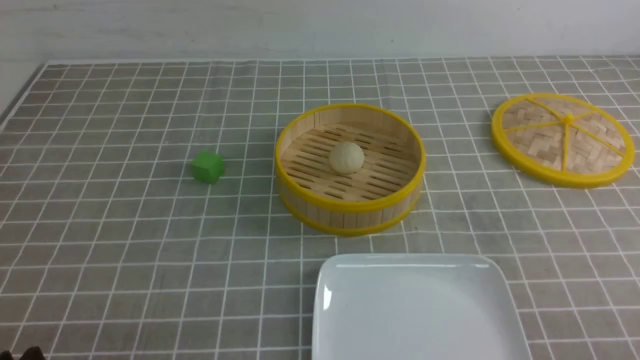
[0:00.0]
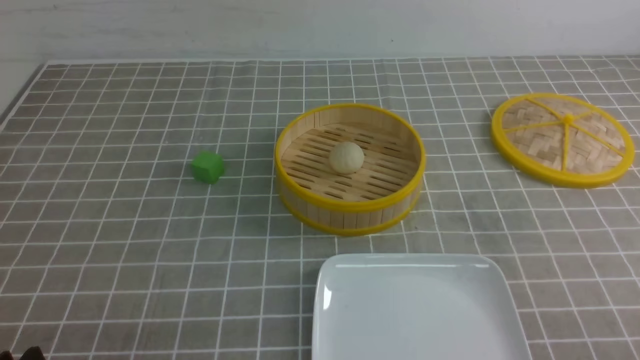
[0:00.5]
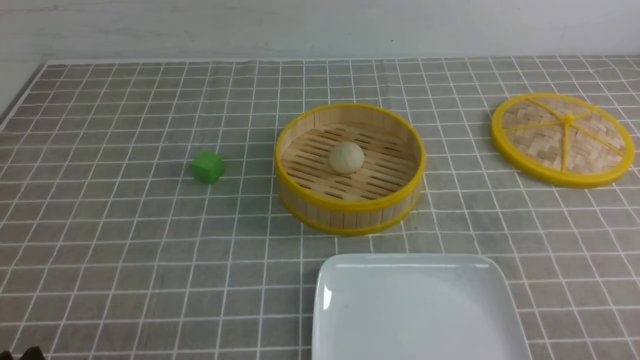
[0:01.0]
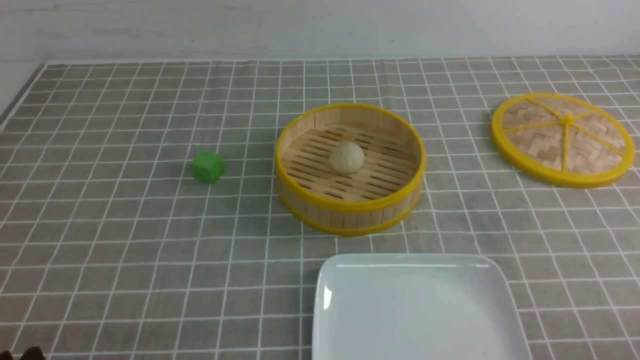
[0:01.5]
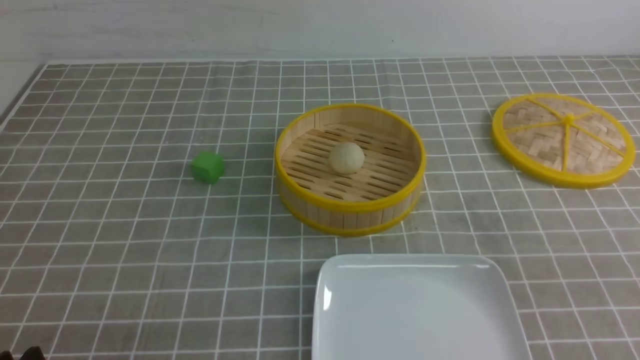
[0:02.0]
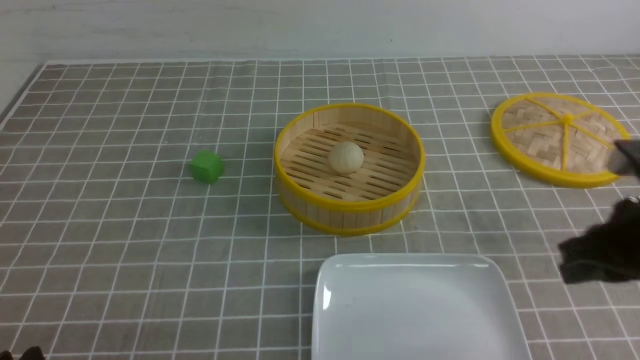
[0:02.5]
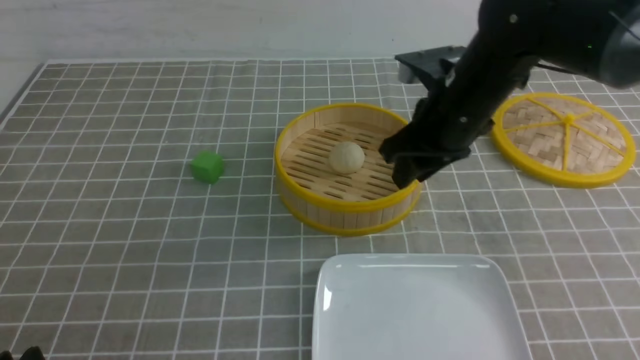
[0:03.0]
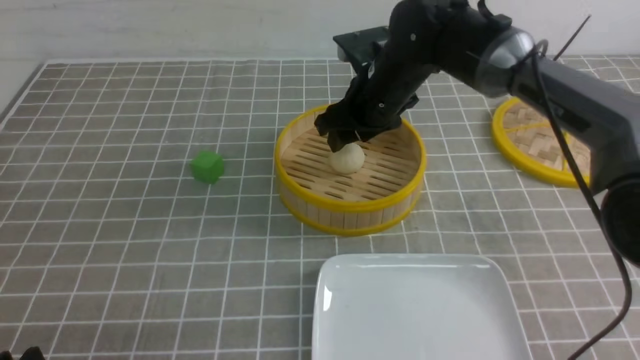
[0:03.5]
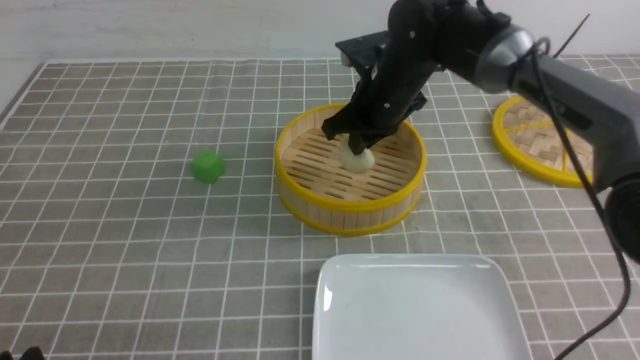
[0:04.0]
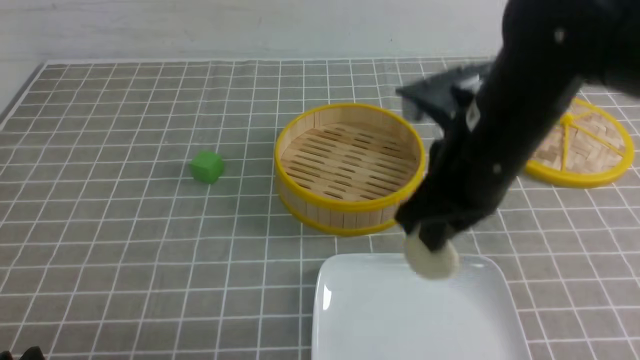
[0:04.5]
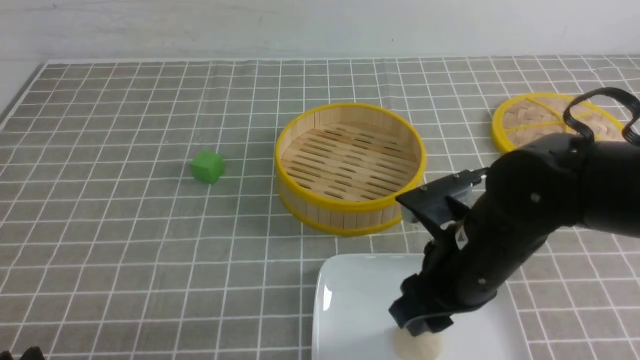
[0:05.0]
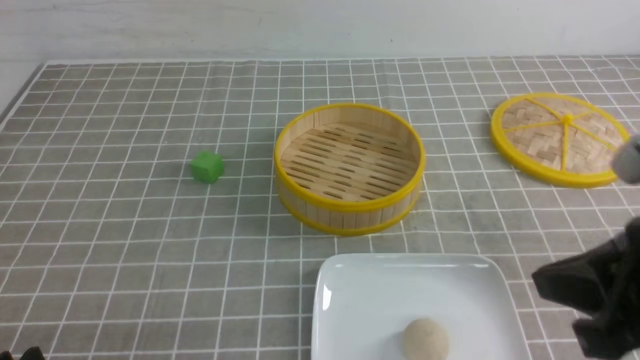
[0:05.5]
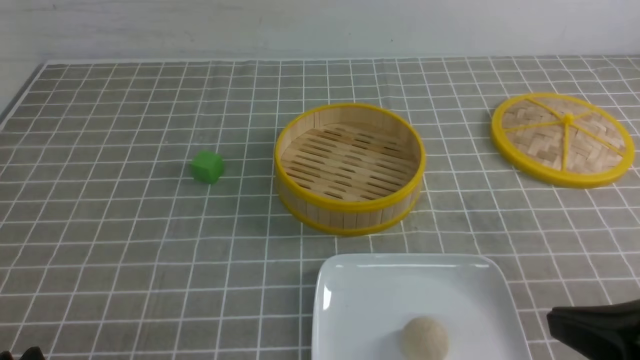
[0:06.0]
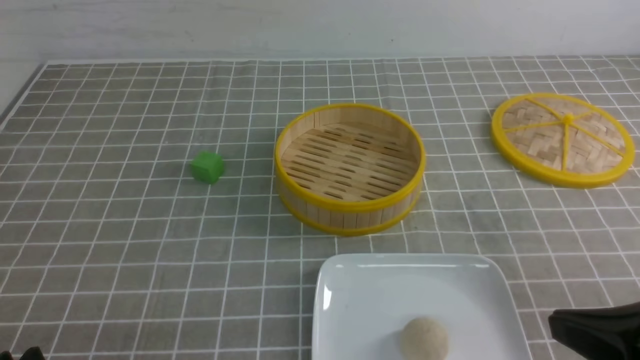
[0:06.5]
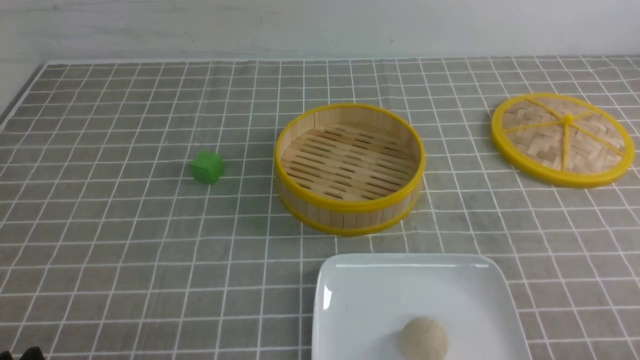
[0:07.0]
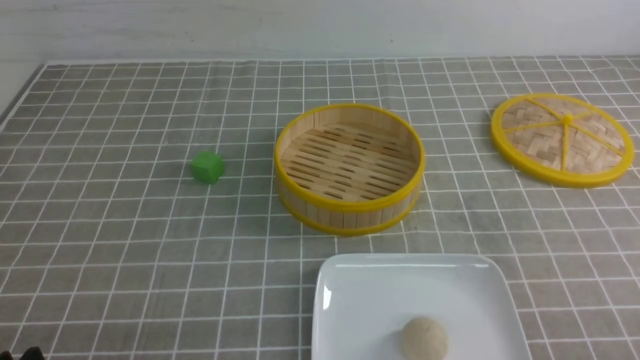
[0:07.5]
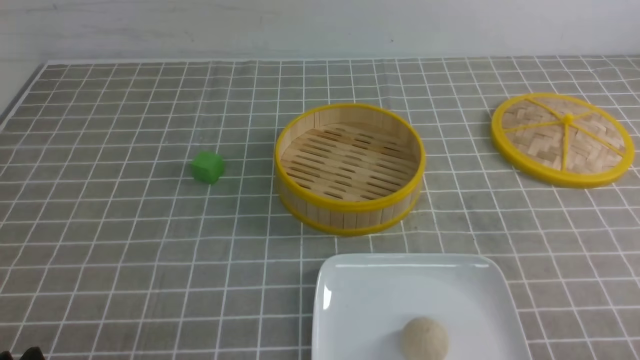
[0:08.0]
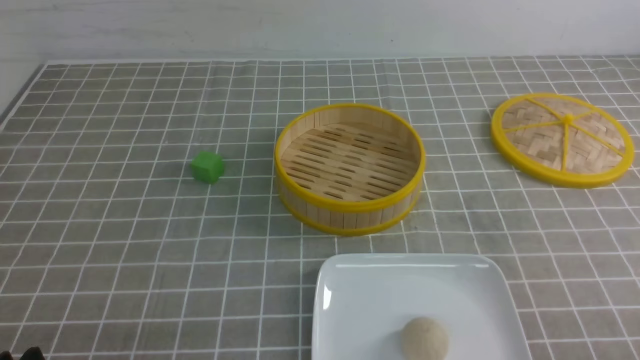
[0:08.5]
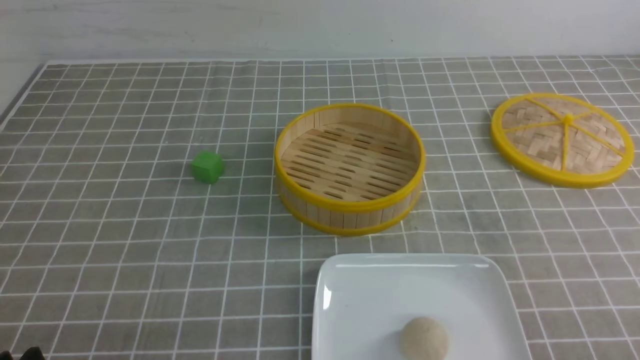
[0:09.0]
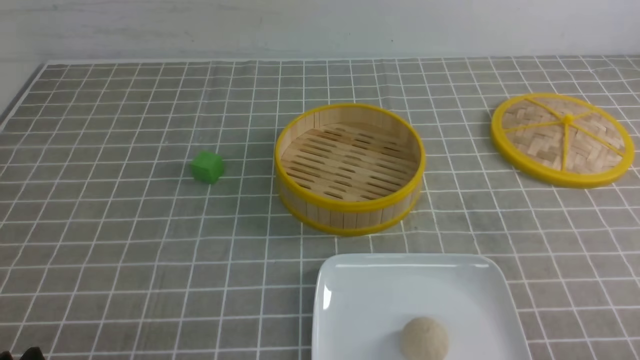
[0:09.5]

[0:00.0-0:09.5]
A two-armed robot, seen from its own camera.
Step, 0:00.0 to 0:03.5: use the right arm to grab the steamed stuffed bun that is closest to it.
Step, 0:04.0 to 0:05.0: use the right arm to put the steamed stuffed bun into the plate.
0:02.0 to 0:04.0: The right gripper heads forward and to the left, covering roughly 40 cm, and opens, then closes again.
0:04.0 to 0:05.5: The right gripper is displaced backward and to the right by approximately 30 cm, and opens, then closes once more.
0:05.5 to 0:07.5: The right gripper goes some 20 cm downward, to the right and backward.
0:07.5 to 0:09.5: Both grippers stay put.
